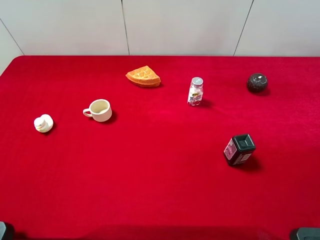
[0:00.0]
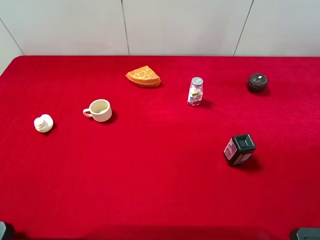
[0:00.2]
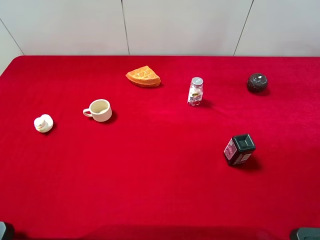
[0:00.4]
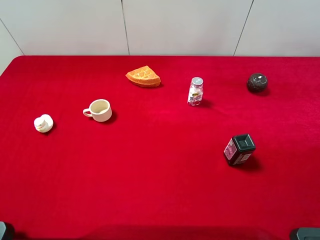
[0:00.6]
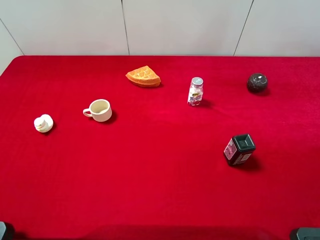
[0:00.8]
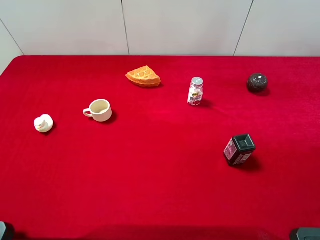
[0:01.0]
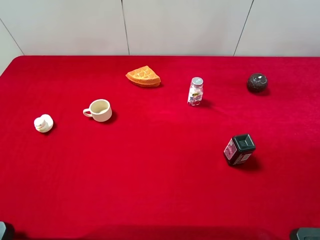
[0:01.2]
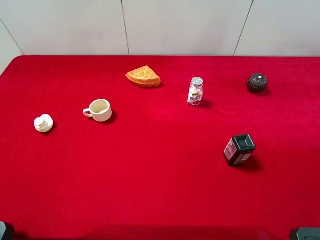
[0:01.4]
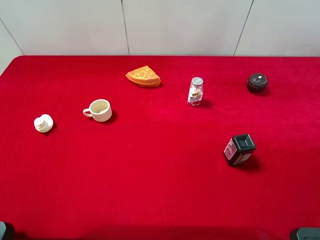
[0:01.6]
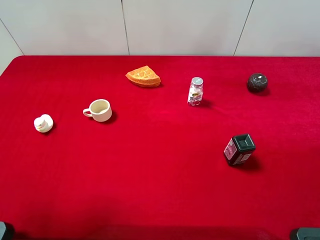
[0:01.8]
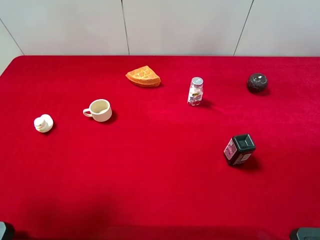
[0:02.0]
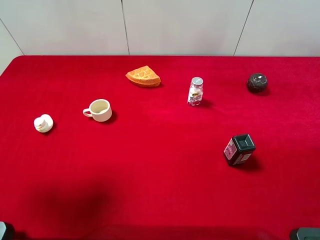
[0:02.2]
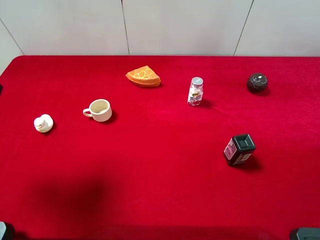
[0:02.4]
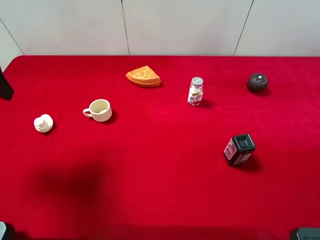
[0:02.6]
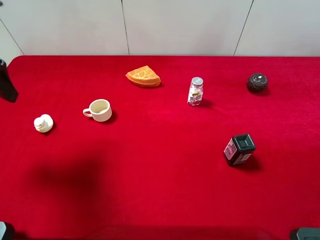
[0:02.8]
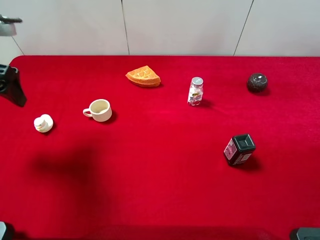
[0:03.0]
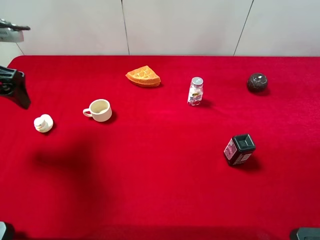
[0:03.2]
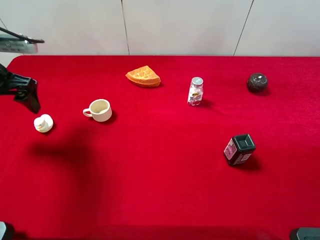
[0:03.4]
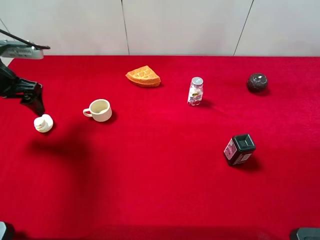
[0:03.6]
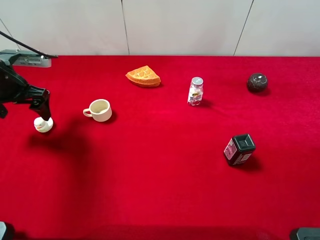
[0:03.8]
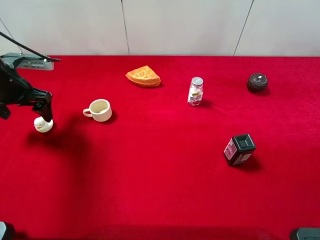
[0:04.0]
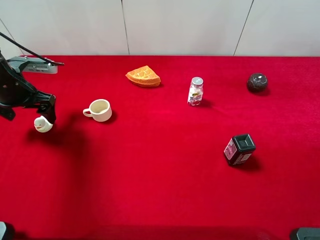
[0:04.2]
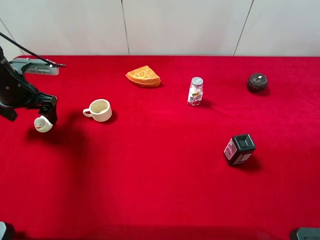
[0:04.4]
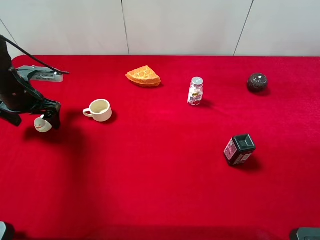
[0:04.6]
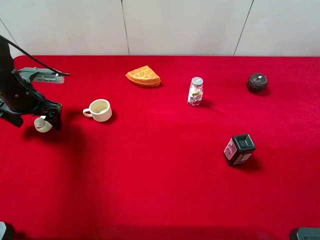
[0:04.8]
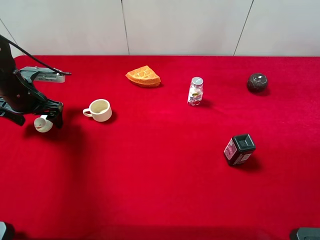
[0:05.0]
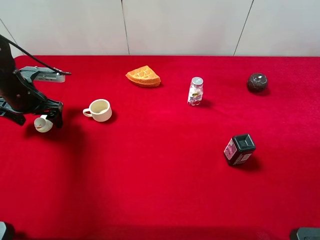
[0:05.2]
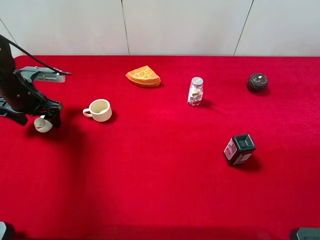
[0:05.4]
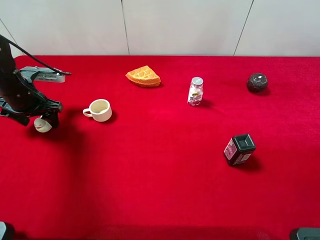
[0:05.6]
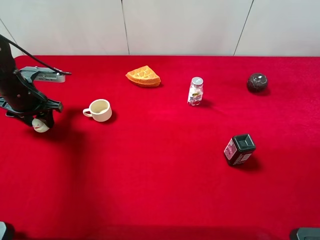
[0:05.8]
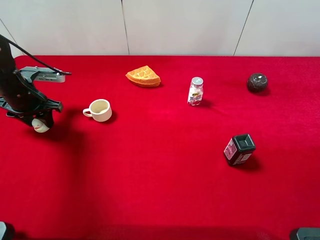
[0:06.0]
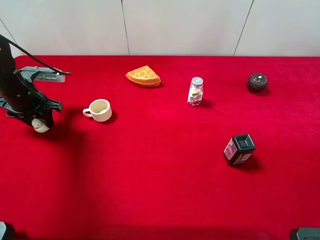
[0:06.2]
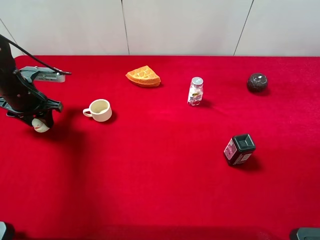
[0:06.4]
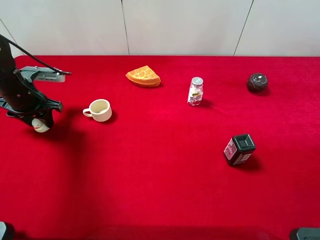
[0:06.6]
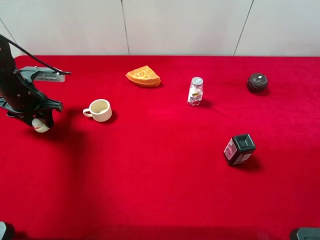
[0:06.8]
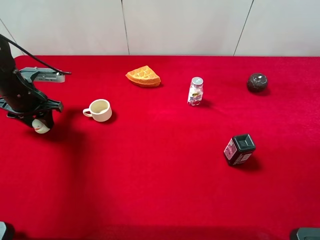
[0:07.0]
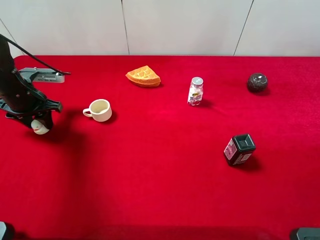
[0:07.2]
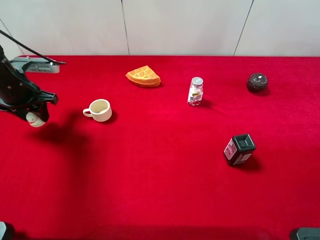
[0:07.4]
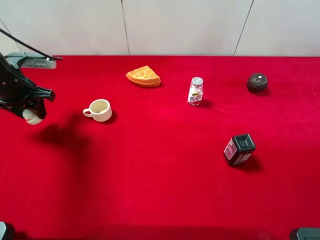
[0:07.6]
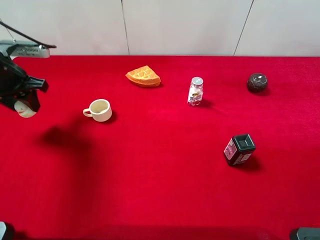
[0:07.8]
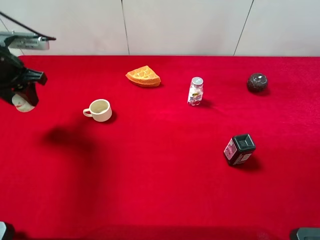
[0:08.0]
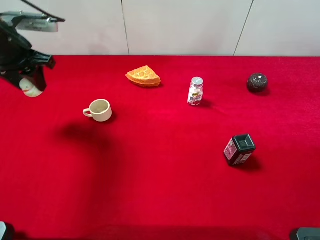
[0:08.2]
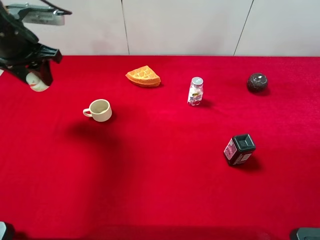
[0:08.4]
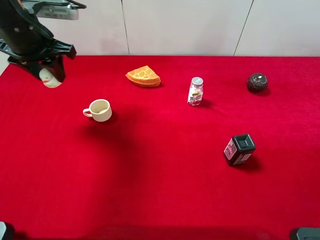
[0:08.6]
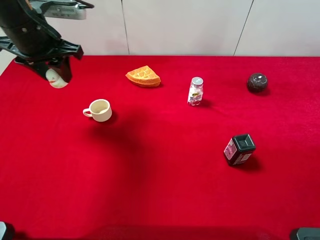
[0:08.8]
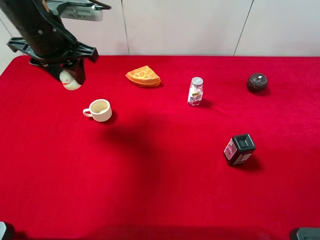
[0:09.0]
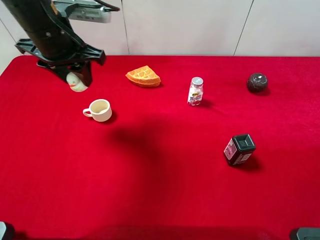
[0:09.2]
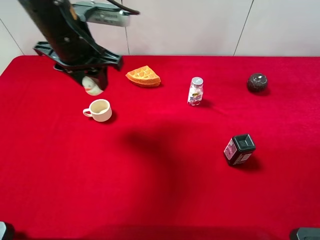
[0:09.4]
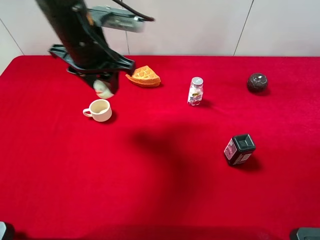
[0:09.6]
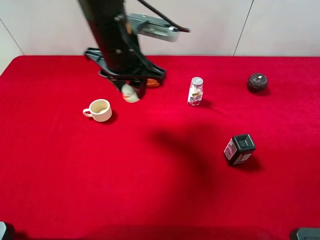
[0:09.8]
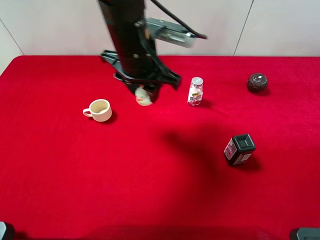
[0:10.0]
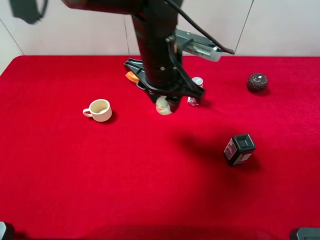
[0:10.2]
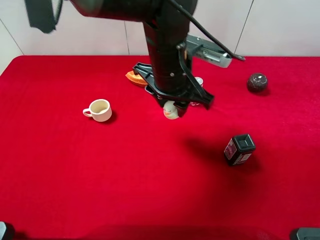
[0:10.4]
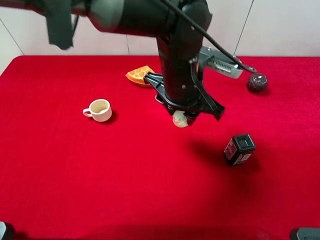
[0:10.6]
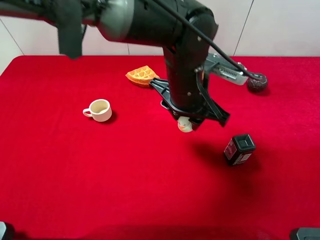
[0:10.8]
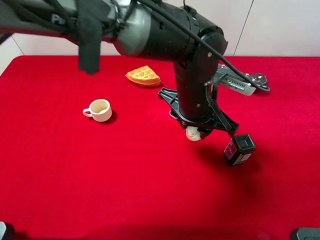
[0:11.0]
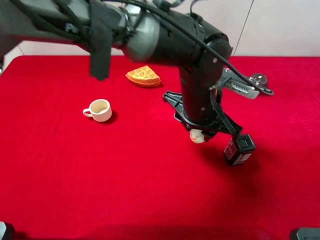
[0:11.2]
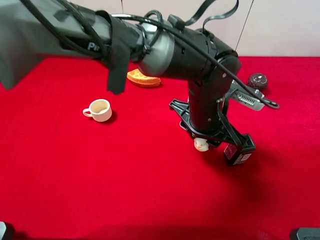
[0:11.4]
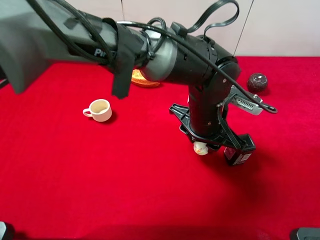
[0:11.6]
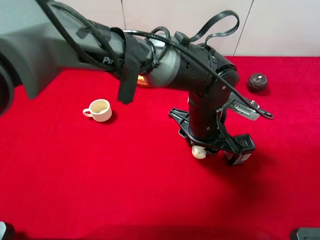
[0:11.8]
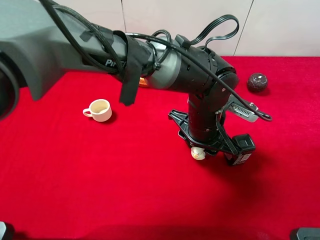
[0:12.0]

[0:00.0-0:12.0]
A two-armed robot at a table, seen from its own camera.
Task of the whole recording: the gripper move the object.
Step, 0.0 to 6.0 s: Grasp the white duck with the left gripper.
1.6 to 3.0 s: The left gripper moves forward and downward, roughly 20 cm.
3.0 to 4.4 s: The left gripper heads downward and forward, covering approximately 15 cm.
4.4 to 6.0 s: The left gripper closes up.
6.0 to 7.6 s: The left gripper ends up some 5 cm from where it was.
7.6 to 9.0 s: The left gripper is displaced to the right and upward by approximately 15 cm.
9.0 to 10.4 s: The left gripper travels to the right by some 20 cm.
10.4 to 12.0 s: The left gripper moves downward and to the right, roughly 10 cm.

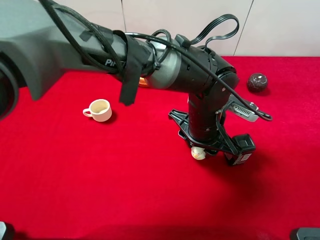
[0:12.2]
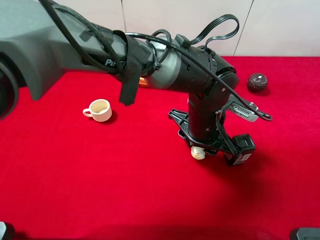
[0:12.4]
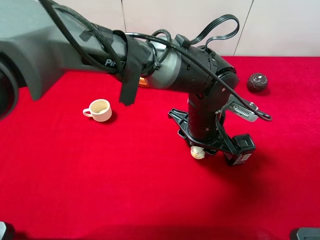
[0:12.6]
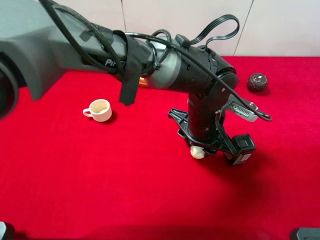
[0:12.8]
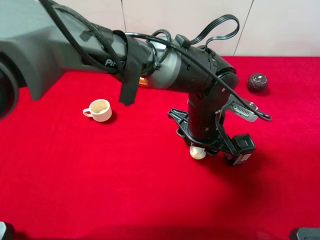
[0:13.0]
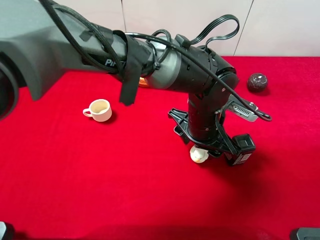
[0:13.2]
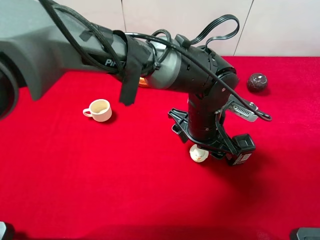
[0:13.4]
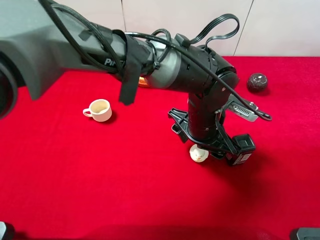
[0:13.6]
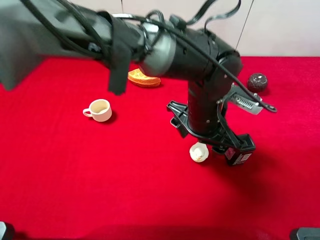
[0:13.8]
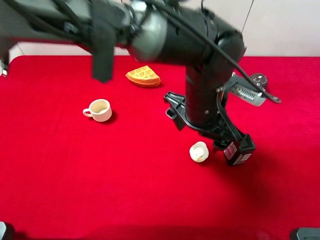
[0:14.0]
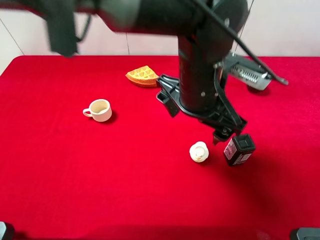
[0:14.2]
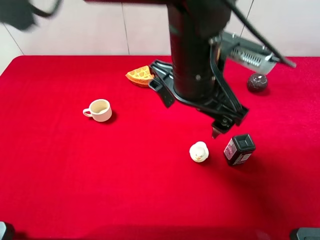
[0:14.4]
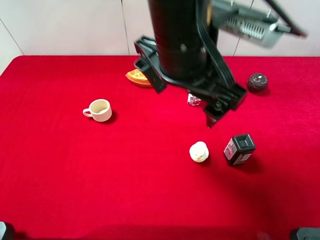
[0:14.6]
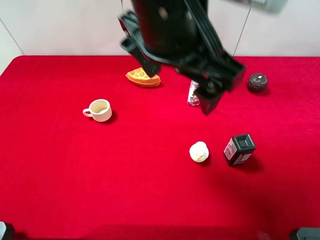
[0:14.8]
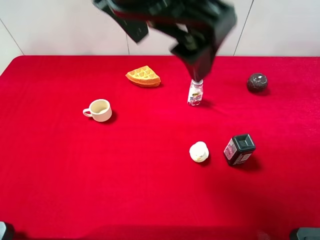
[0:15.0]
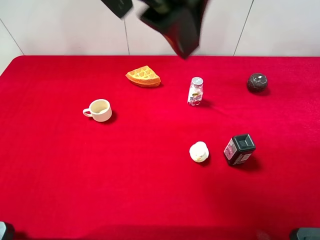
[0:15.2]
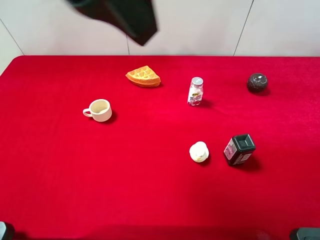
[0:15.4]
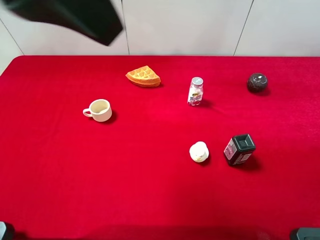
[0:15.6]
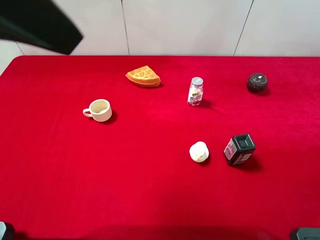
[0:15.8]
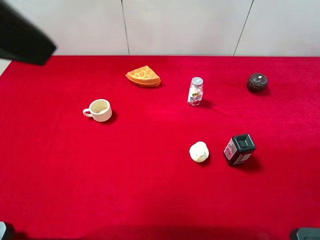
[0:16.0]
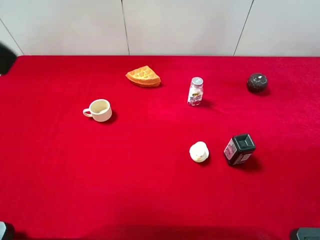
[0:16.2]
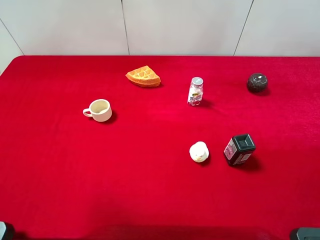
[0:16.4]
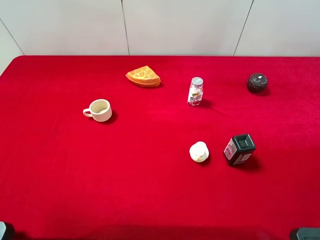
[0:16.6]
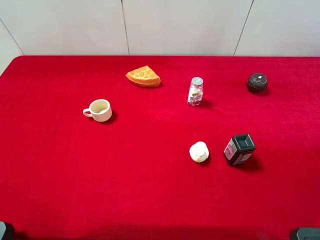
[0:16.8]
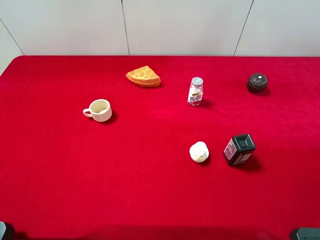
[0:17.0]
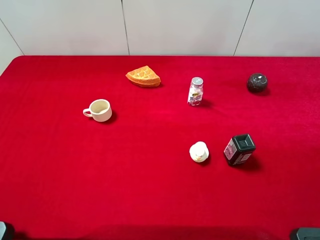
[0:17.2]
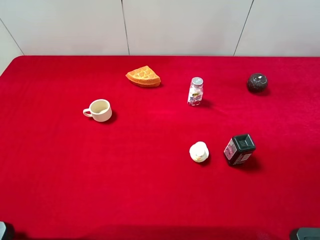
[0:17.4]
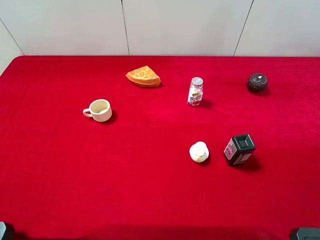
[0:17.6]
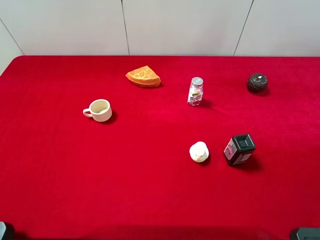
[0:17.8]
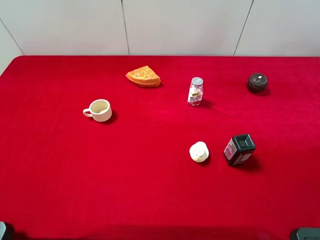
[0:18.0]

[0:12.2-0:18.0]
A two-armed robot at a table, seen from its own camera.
Task of the whole recording: the gripper move the object.
12.2 to 13.6 s: The left gripper opens its fingers.
13.6 to 15.0 s: The left gripper shifts roughly 30 cm upward and to the left, and opens its fingers.
15.0 to 16.6 s: The left gripper goes about 25 cm to the left.

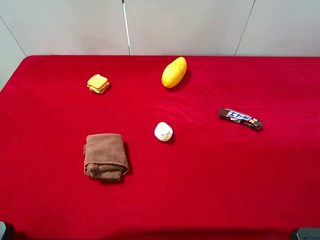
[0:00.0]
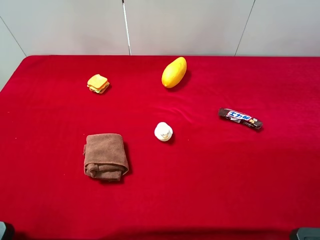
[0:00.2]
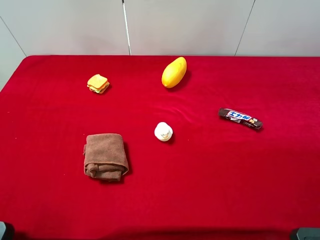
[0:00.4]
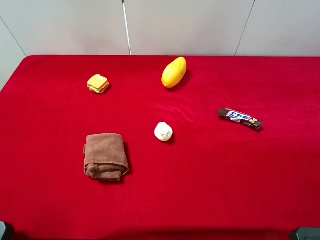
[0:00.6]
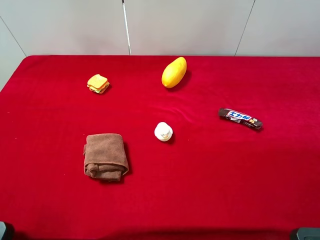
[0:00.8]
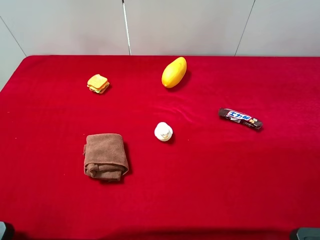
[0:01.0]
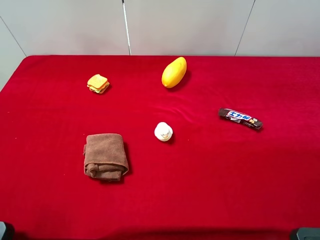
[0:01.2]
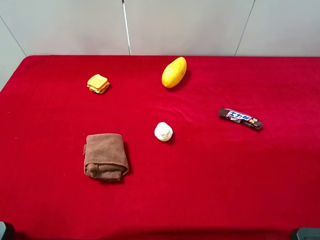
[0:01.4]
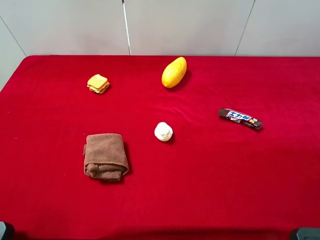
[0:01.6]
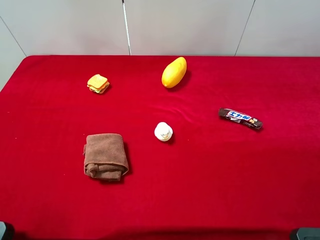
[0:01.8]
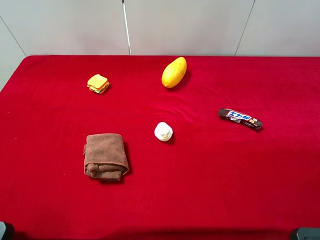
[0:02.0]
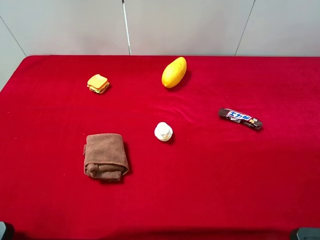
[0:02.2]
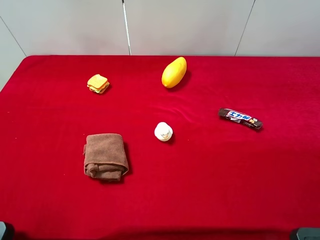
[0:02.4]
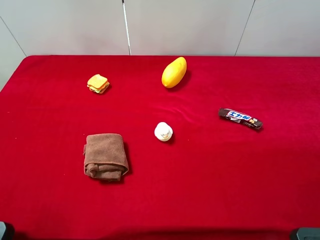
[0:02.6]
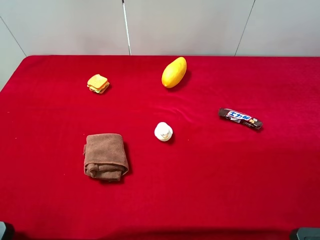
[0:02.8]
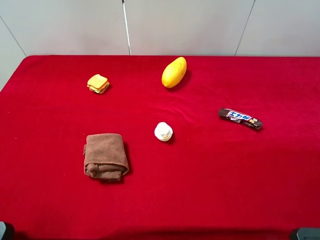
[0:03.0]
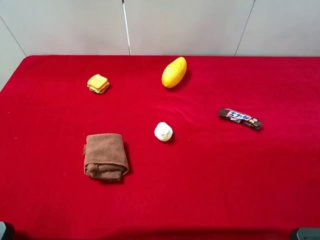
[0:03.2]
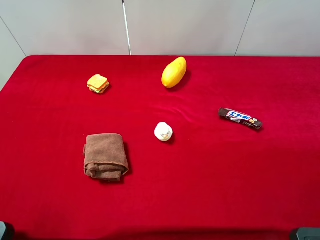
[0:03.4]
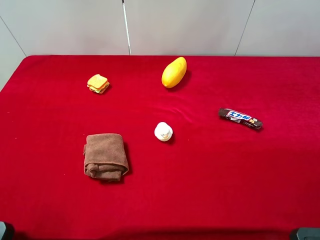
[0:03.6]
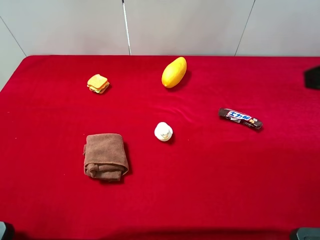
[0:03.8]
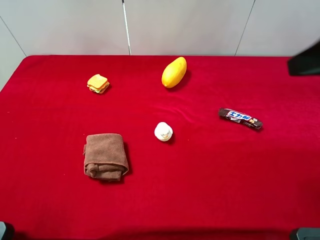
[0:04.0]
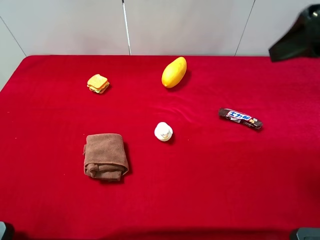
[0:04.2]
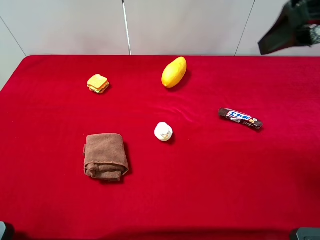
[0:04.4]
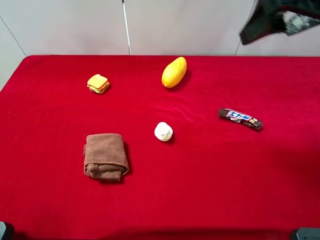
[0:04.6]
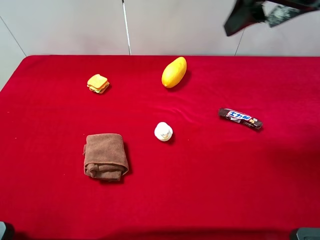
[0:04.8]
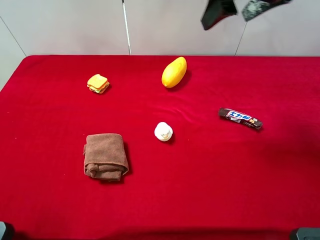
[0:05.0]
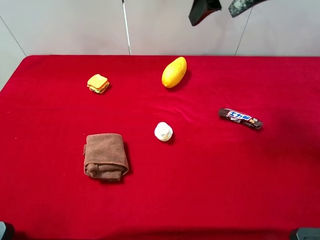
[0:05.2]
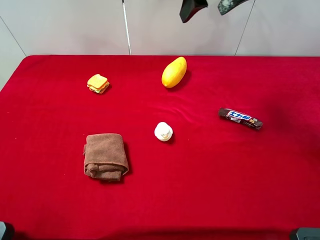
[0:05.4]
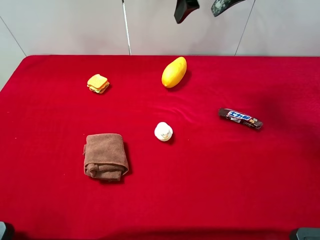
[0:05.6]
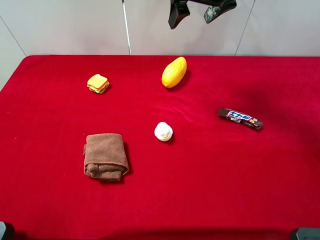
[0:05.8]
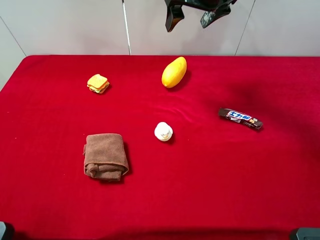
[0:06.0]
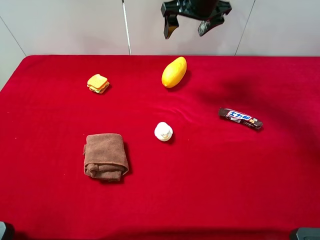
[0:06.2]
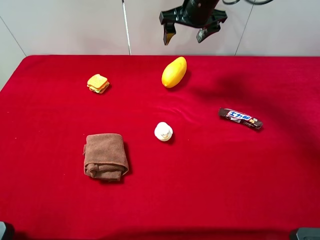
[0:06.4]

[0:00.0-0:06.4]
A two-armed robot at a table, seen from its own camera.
Task of the whole recording: the gripper move the object.
3.2 to 4.8 s: The right gripper is displaced forward and to the left by approximately 25 cm.
4.8 to 6.4 s: The right gripper is displaced forward, to the left and downward by roughly 25 cm.
